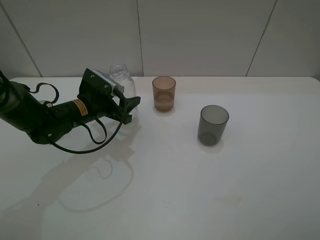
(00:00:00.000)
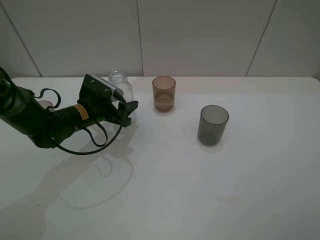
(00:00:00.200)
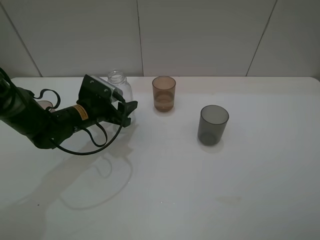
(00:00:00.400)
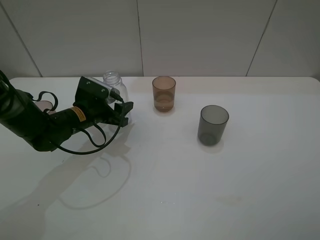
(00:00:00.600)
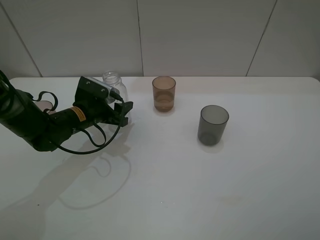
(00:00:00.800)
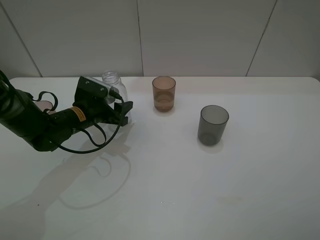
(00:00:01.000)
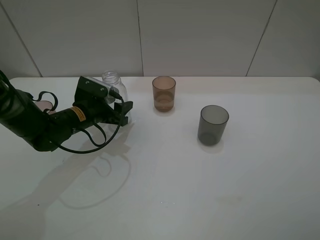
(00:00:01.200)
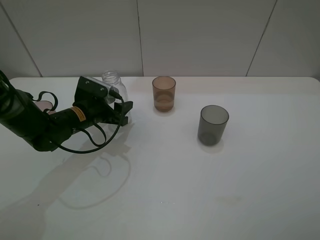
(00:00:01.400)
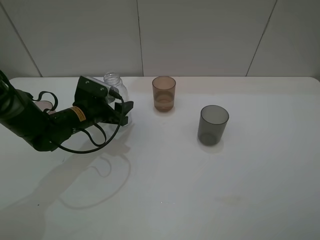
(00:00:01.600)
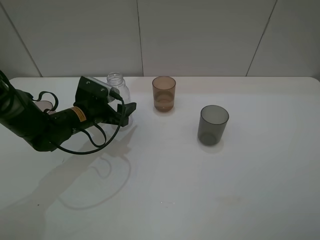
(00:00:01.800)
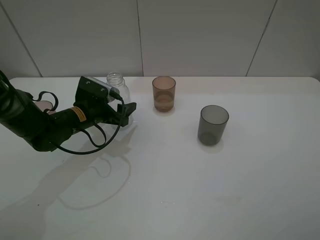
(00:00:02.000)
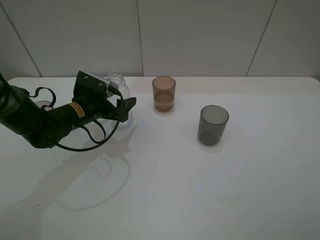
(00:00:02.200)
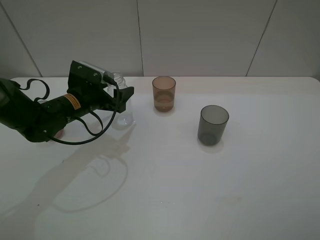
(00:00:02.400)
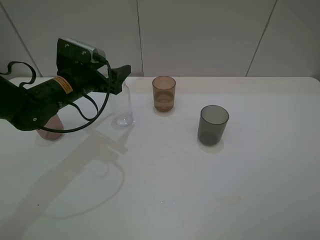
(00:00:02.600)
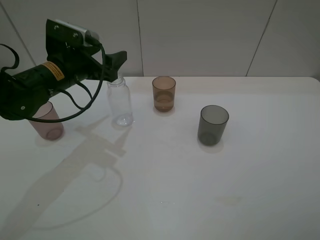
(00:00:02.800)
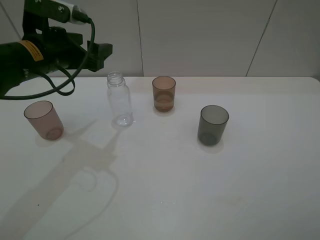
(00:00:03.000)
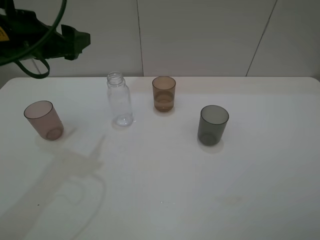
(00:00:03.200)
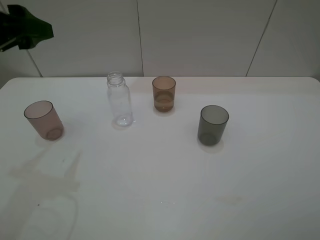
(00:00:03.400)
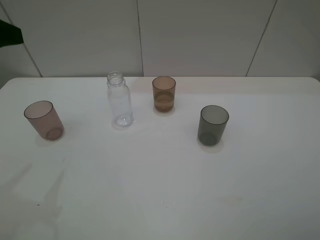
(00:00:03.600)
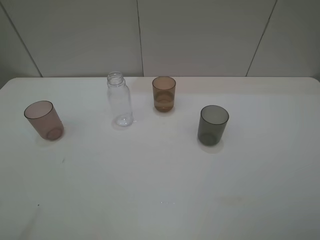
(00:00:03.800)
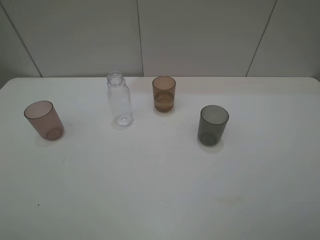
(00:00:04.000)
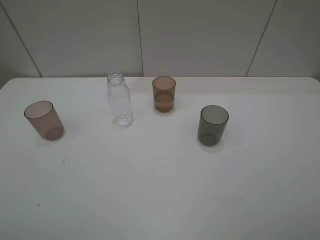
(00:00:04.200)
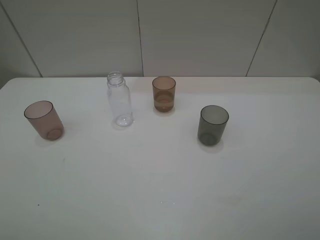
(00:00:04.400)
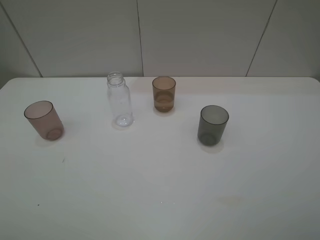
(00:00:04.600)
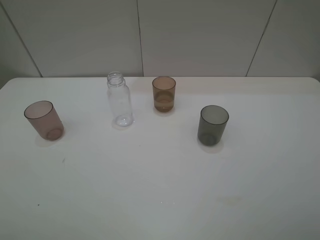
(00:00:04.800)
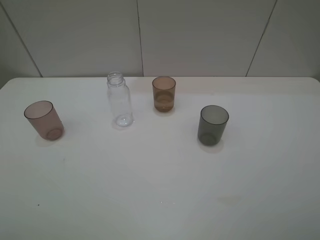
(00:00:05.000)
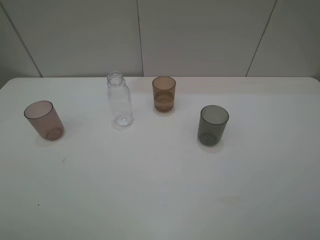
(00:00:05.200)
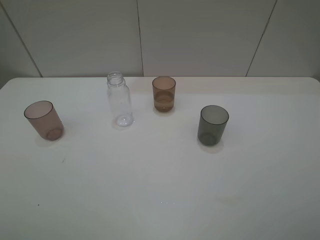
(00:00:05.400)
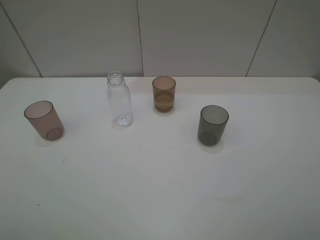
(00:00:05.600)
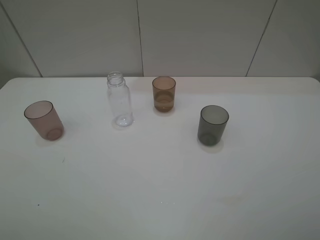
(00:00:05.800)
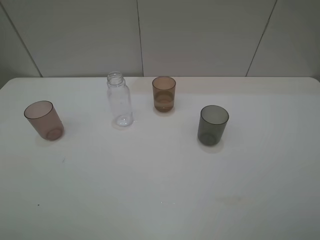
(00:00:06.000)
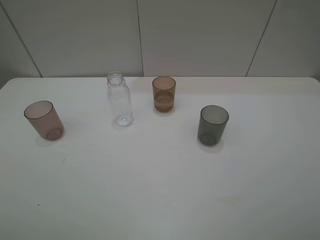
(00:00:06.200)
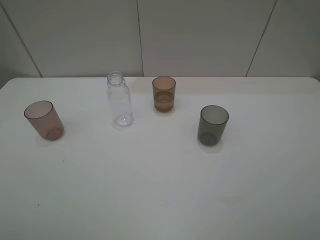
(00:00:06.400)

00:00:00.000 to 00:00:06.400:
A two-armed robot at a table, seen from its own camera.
Task of the whole recording: pick up the bottle filled with water and pour water into the middle cup of the three cups.
Step, 00:00:00.000 to 00:00:02.400: Place the transparent bottle with the left gripper.
00:00:00.000 to 00:00:01.600: The left gripper opens up.
00:00:01.600 to 00:00:03.200: The left gripper is displaced upward by about 20 cm, and opens its fingers.
00:00:03.200 to 00:00:04.800: The left gripper goes about 30 cm backward.
